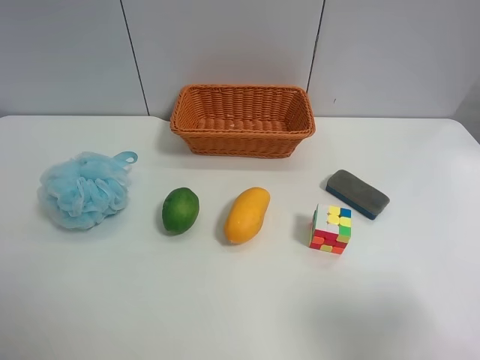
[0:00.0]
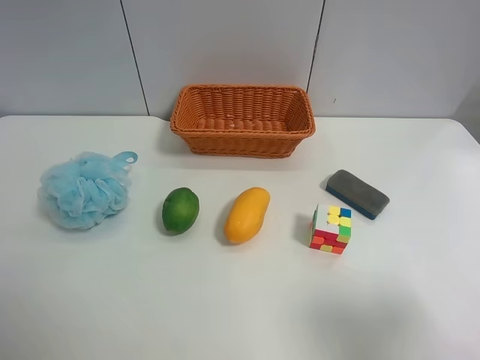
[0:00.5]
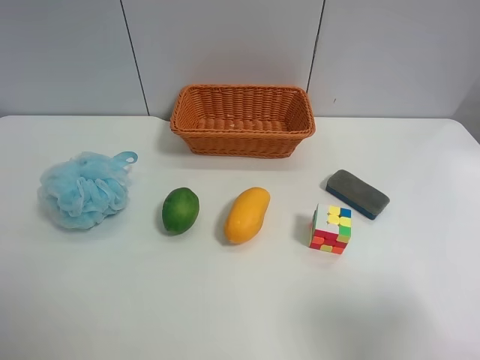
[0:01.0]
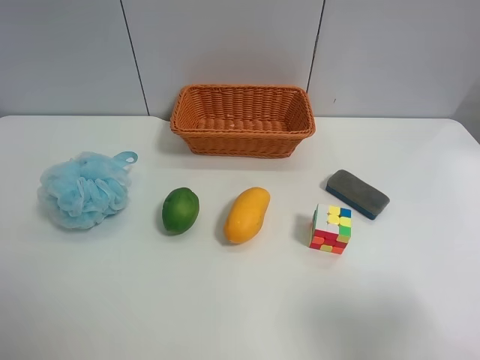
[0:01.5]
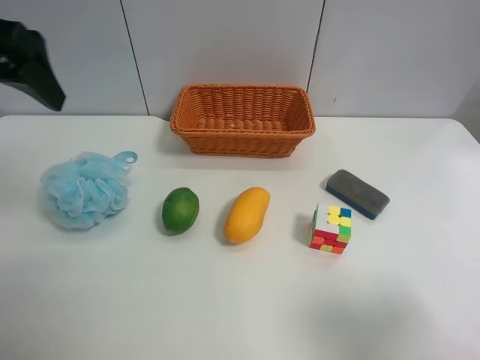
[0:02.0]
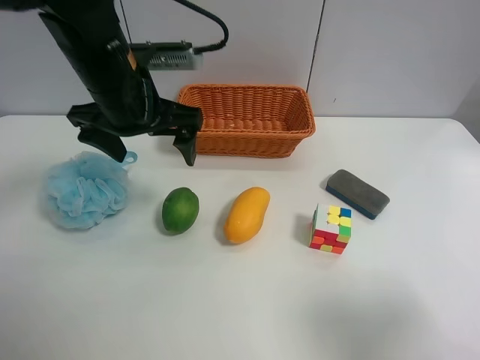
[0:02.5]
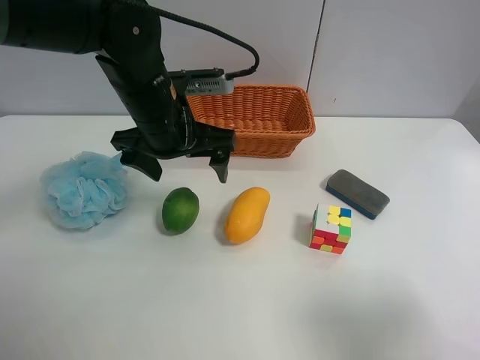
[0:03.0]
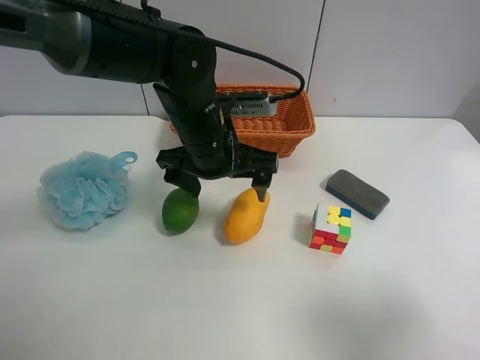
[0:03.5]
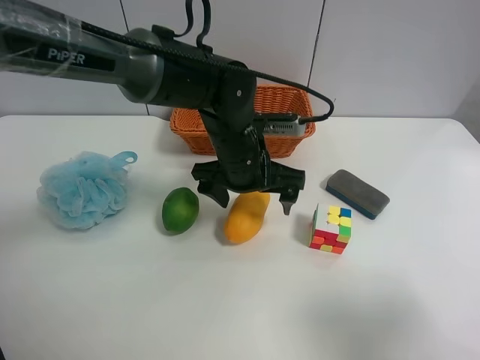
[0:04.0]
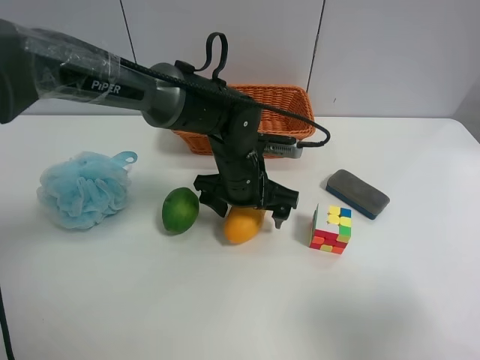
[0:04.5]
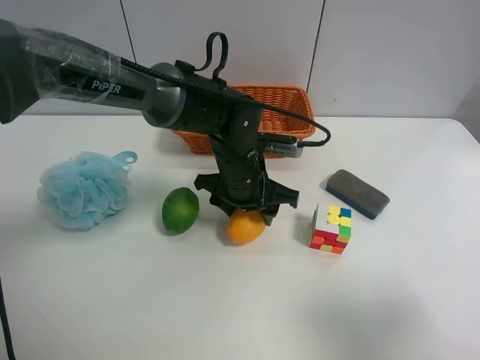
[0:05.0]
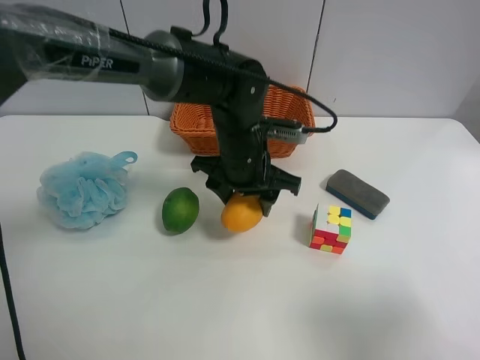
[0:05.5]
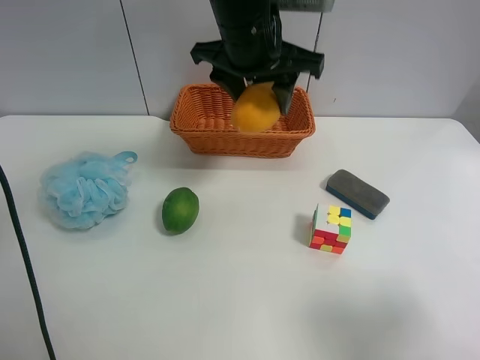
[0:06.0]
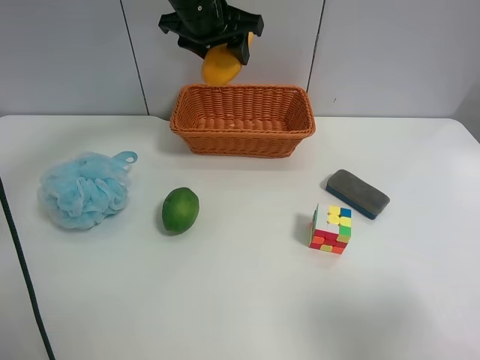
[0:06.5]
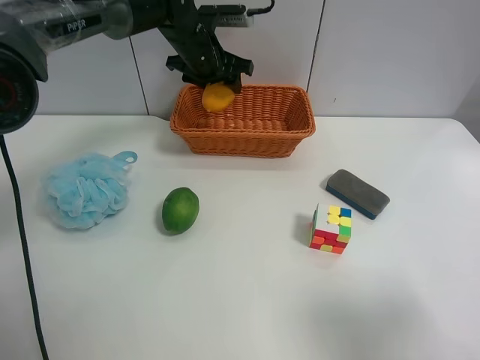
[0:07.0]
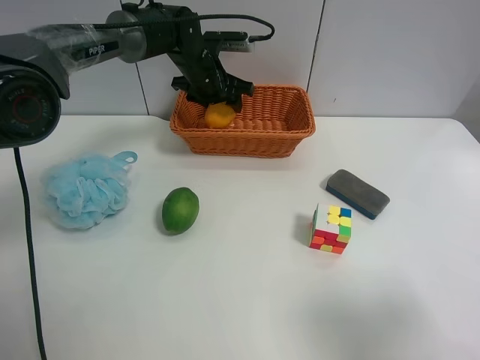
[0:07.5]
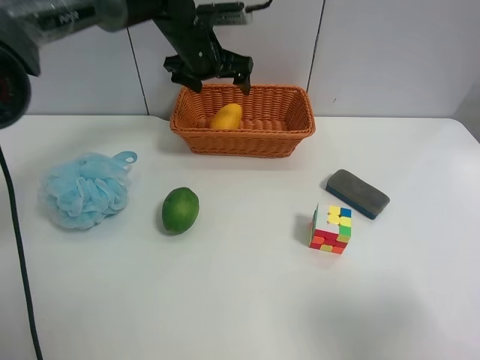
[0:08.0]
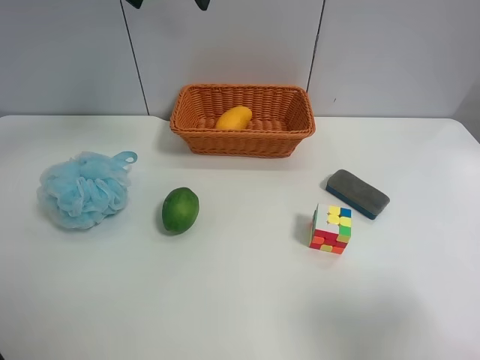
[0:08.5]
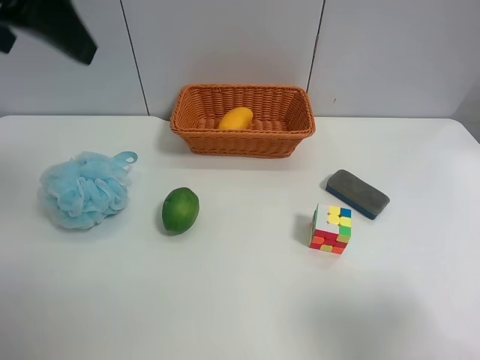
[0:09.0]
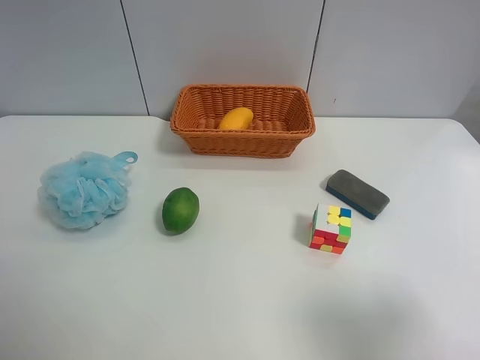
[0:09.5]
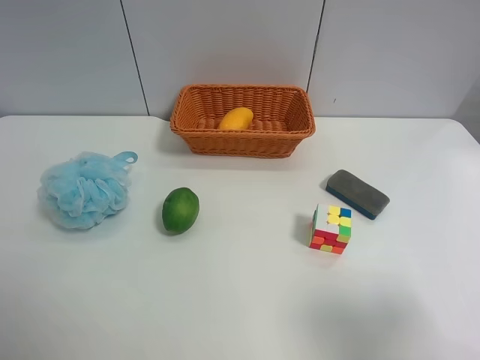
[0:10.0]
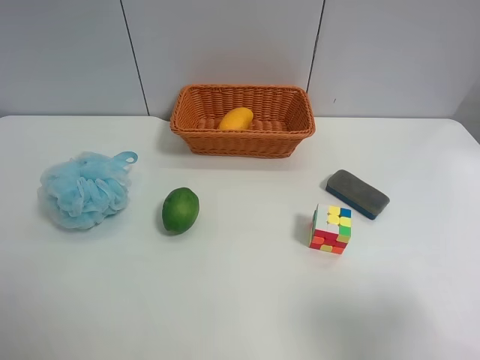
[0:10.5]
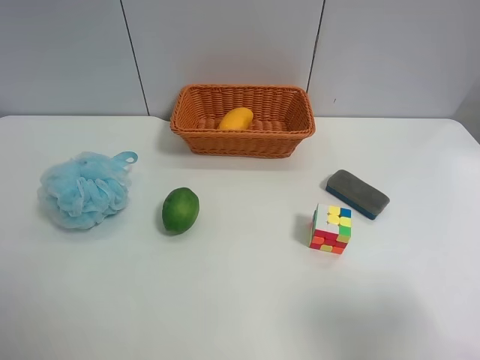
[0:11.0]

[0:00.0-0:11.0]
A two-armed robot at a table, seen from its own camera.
Task of the whole recording: Randomly grab green lemon or mangoes from the table and put them in a basket.
Step, 0:00.0 to 0:04.5: Grasp the mango with the left gripper.
Step, 0:05.0 to 0:08.0: Place the mango into the basket with the left gripper.
0:00.0 to 0:02.0: The left gripper goes roughly 25 cm forward.
0:02.0 to 0:03.5: The left gripper is displaced to the right and downward by roughly 25 cm.
0:03.5 to 0:05.5: The left gripper closes up.
0:05.5 to 0:07.5: The left gripper moves forward and to the left, roughly 20 cm.
0:07.5 to 0:09.0: The left gripper travels backward, upward and to the left by about 40 cm, and opens up.
0:09.0 to 0:11.0: The left gripper heads backward, downward and to the left, covering about 25 cm.
